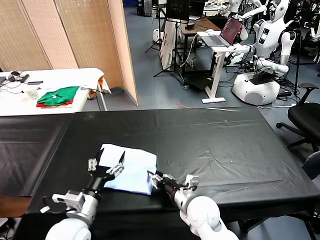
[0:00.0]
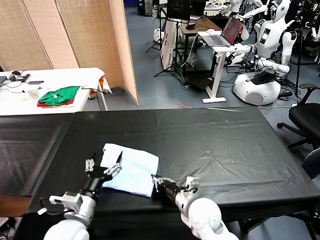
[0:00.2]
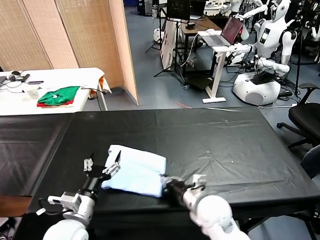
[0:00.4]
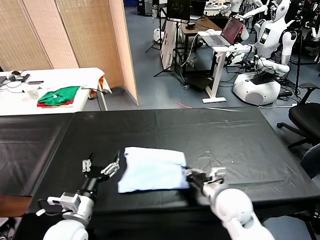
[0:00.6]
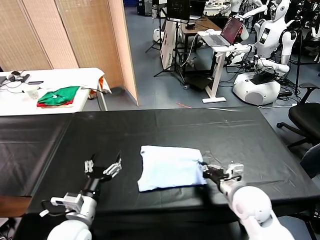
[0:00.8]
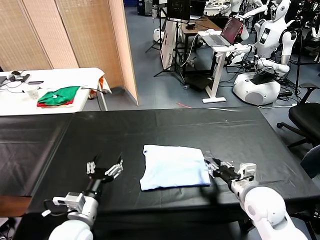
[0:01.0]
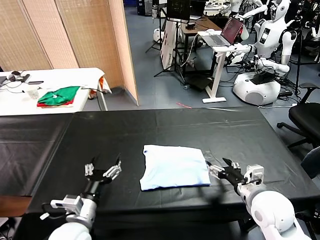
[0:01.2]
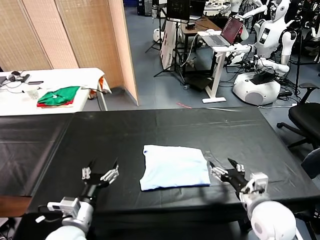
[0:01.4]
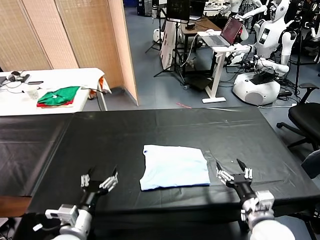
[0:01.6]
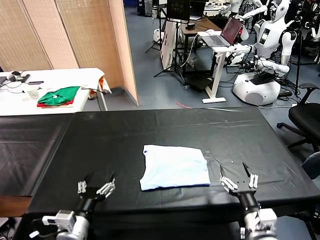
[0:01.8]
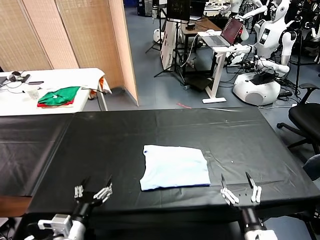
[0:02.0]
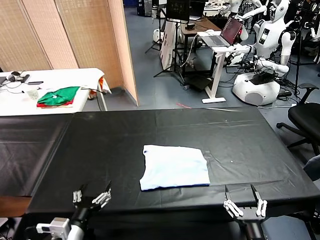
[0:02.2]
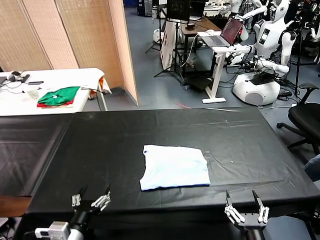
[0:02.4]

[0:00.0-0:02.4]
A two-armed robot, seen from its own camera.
Task of the whole recording: fold and organize the clothes.
Step, 0:00.0 to 0:01.0: Drag the clothes to the center of the table.
0:00.0 to 0:01.2: The right gripper heads to the right and upward, covering about 20 cm, and closes and opens again.
0:01.2 to 0:02.4: The left gripper shifts some 5 cm backward, while the right gripper heads backward, covering some 20 cm.

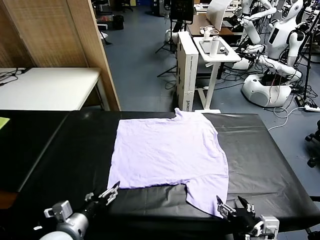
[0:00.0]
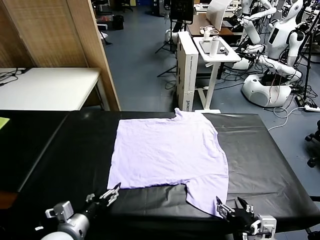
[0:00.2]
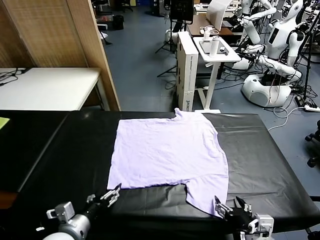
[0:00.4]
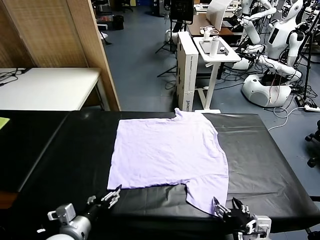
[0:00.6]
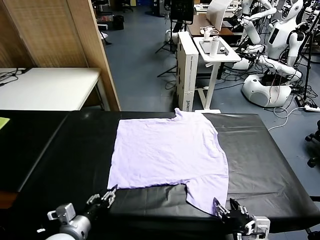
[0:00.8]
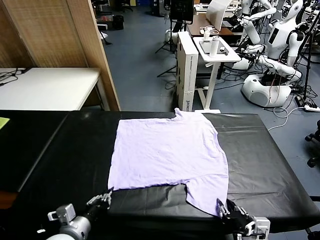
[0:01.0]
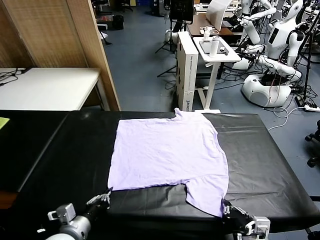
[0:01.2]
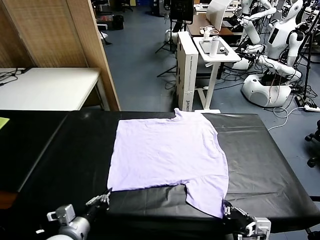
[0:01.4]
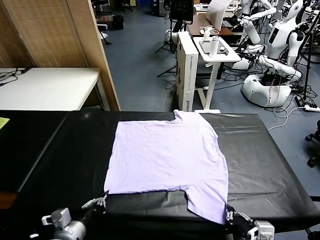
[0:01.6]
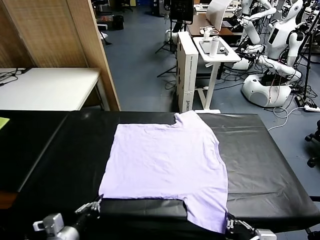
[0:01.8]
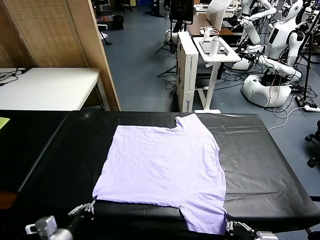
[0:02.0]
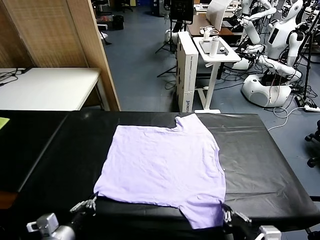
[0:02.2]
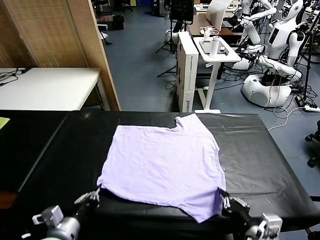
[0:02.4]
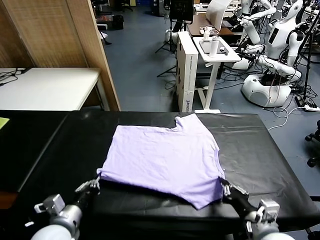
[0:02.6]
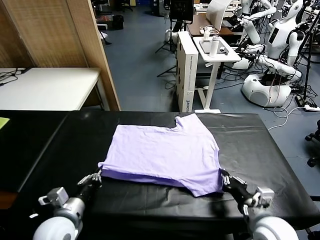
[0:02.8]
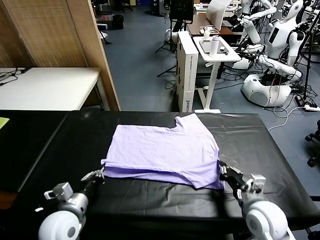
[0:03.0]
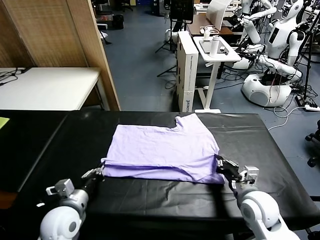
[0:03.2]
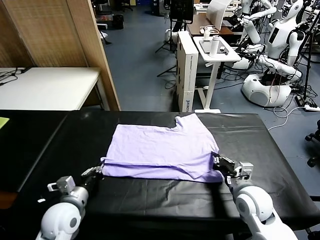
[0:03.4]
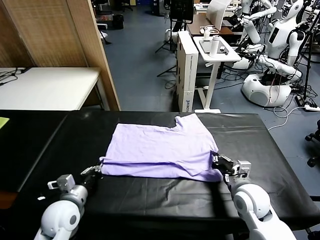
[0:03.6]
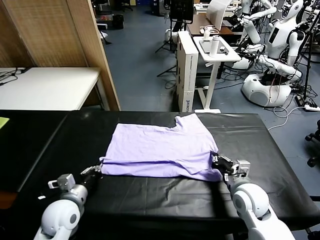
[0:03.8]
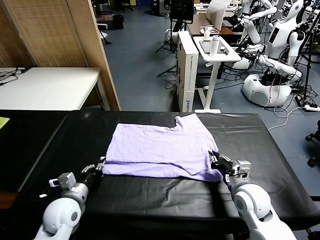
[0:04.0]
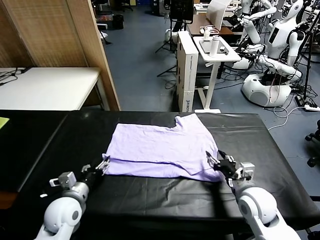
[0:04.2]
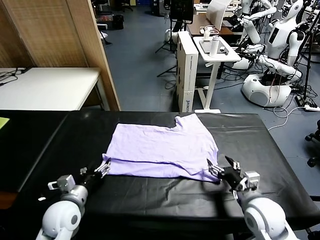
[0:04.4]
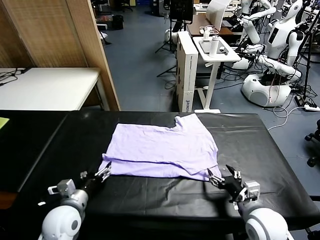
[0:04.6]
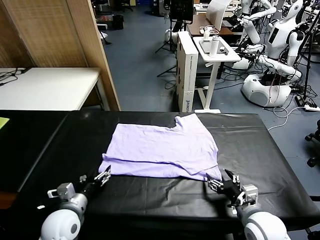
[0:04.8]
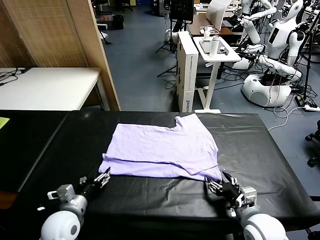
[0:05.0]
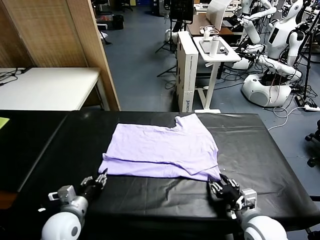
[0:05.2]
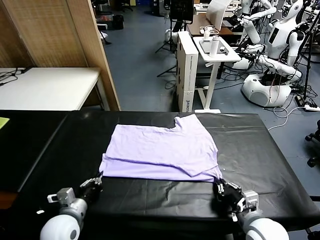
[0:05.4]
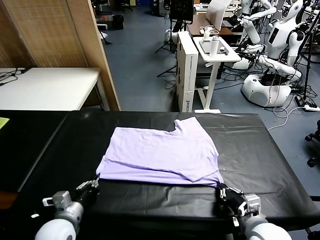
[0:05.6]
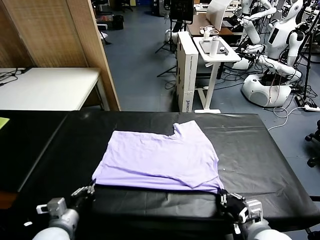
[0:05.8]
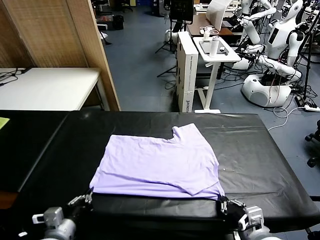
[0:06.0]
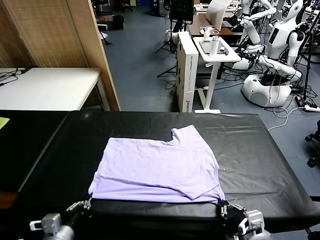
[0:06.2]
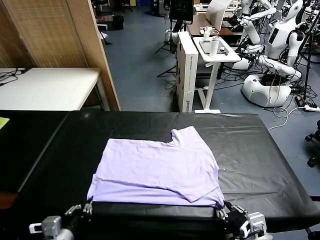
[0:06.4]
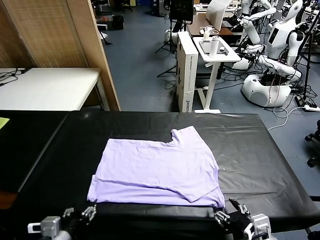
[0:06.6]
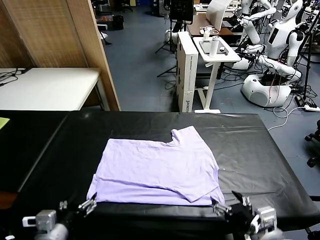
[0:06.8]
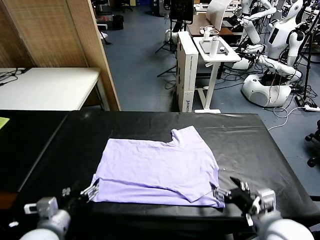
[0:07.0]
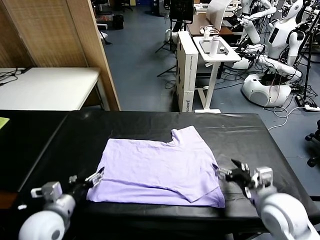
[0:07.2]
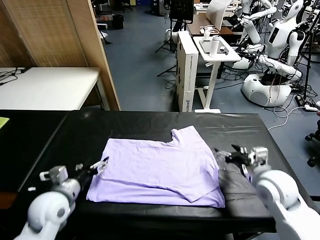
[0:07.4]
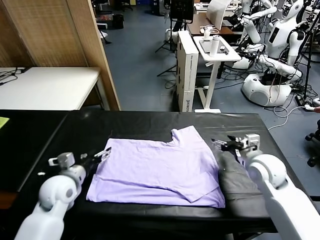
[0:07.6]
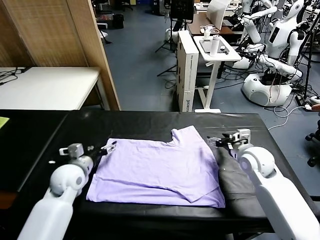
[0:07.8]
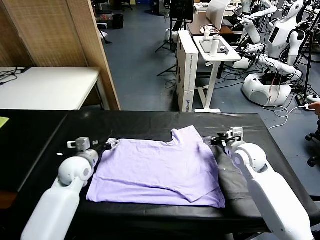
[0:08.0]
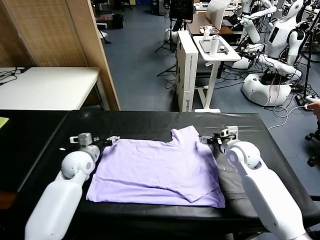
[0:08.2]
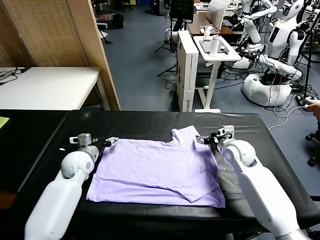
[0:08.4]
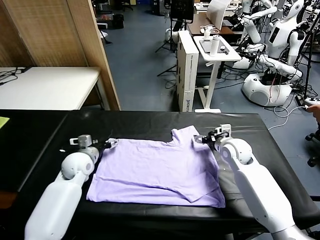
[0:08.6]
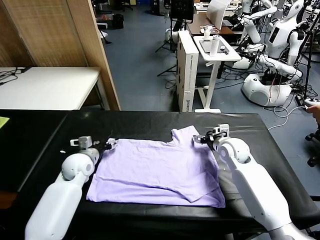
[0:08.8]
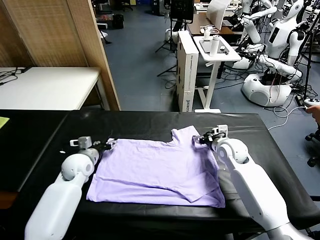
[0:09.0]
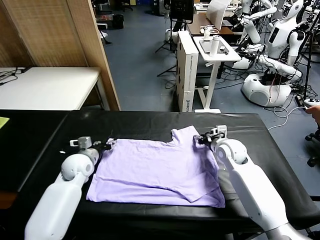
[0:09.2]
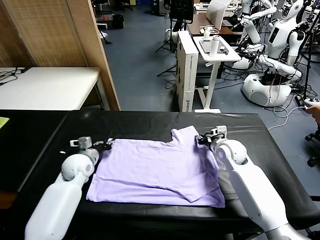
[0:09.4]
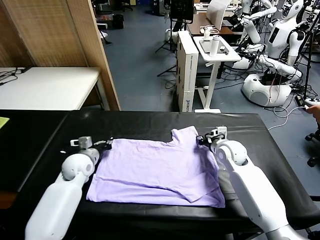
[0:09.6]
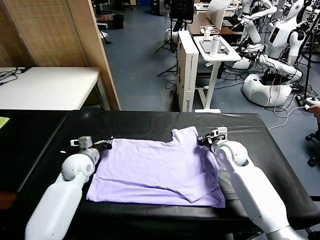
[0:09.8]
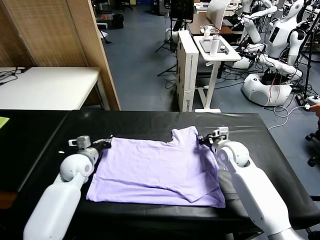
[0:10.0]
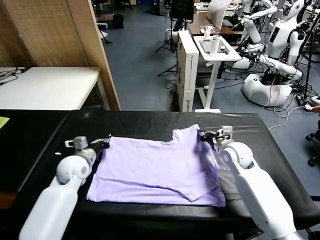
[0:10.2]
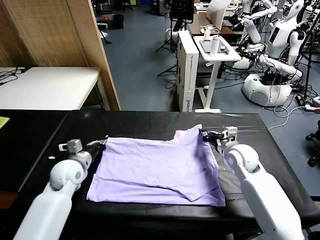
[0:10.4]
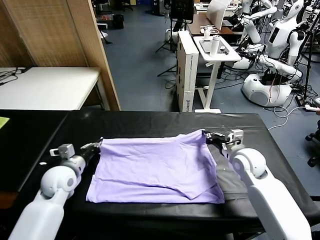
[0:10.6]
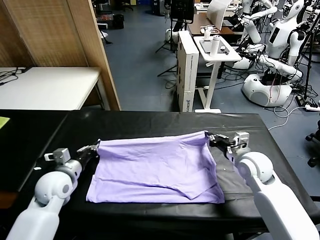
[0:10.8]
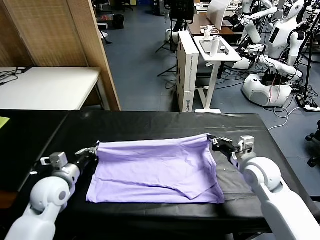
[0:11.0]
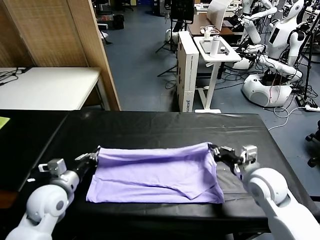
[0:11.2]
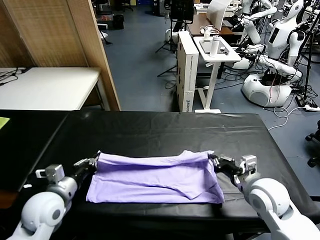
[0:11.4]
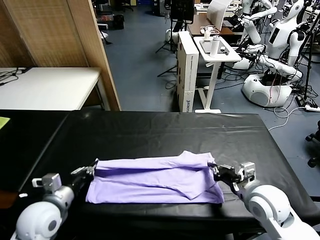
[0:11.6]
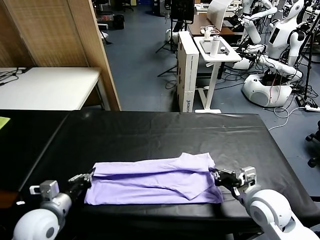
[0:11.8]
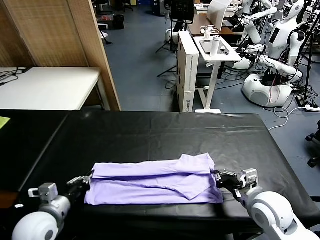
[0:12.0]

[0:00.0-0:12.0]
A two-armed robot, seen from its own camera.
Task of the whole recording: fold and organize the clothes.
Step, 0:00.0 to 0:01.6: use both grippers simultaneously to clamp the lower edge of the clothing fabric.
Step, 0:01.8 to 0:04.2: use both grippers to drag the lower edge of the fabric forward and fold it over the upper edge.
Step, 0:04.4 to 0:06.6: Drag the clothes downward with both gripper.
Step, 0:06.8 to 0:09.8: use both grippers simultaneously to clamp the upper edge of the clothing fabric.
0:01.6 to 0:03.0: The left gripper travels forward by roughly 10 cm. Meanwhile the right gripper moves forward, roughly 20 cm.
0:03.0 to 0:04.4: The right gripper opens, while the left gripper opens its fingers.
0:04.4 to 0:06.0: The grippers both shift backward by some 10 cm. The left gripper closes, while the right gripper closes.
0:06.0 to 0:07.6: The left gripper moves forward, roughly 10 cm, and opens up, while the right gripper is displaced forward by roughly 25 cm, and opens.
0:07.6 to 0:09.0: The left gripper travels forward by some 15 cm, and closes up; the right gripper travels forward and downward by roughly 10 cm, and closes.
0:09.0 to 0:10.4: The right gripper is displaced backward by about 5 cm; the left gripper closes its fingers.
0:10.4 to 0:12.0: The grippers both shift backward by some 15 cm.

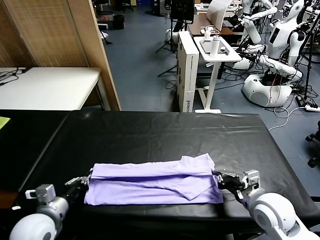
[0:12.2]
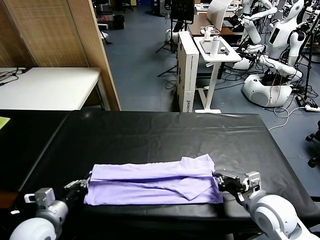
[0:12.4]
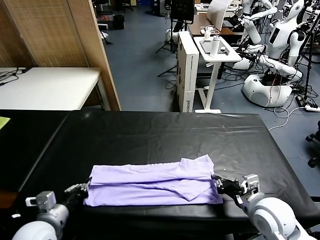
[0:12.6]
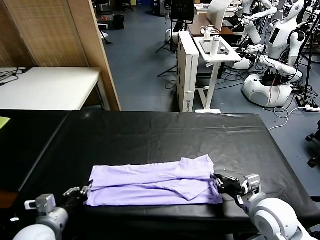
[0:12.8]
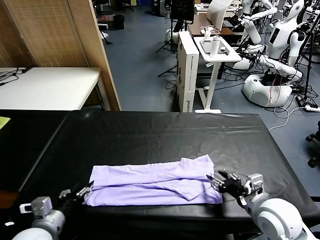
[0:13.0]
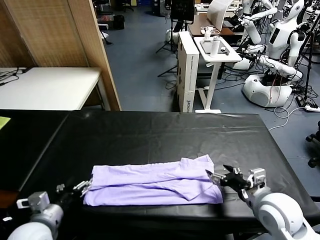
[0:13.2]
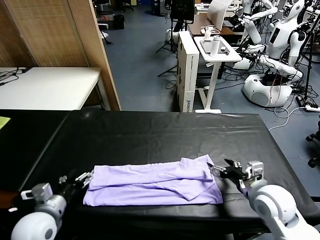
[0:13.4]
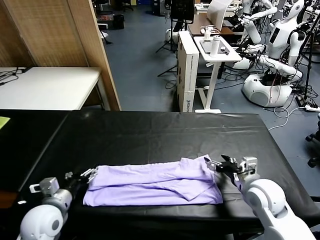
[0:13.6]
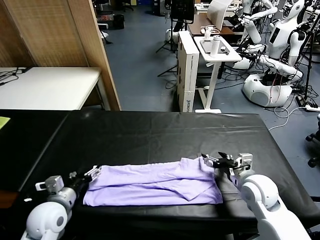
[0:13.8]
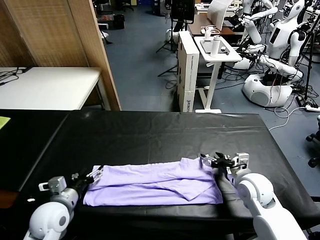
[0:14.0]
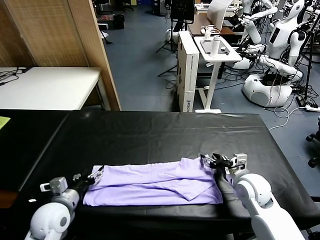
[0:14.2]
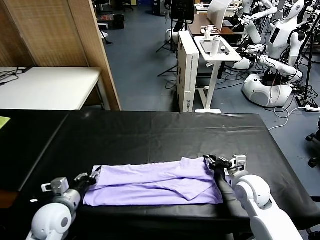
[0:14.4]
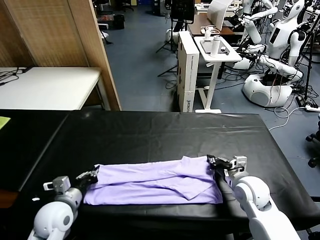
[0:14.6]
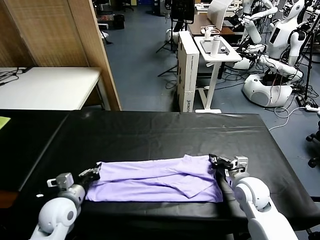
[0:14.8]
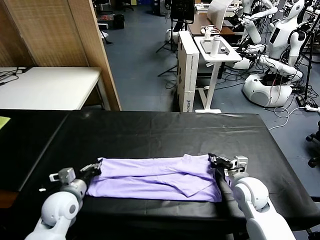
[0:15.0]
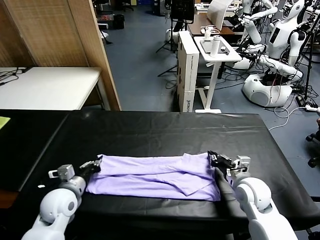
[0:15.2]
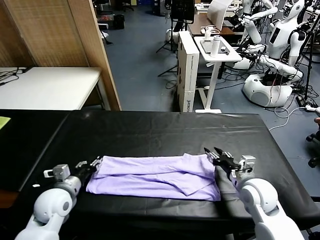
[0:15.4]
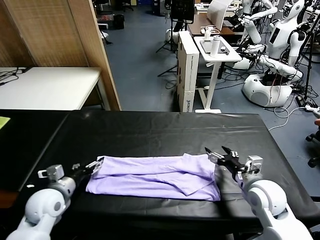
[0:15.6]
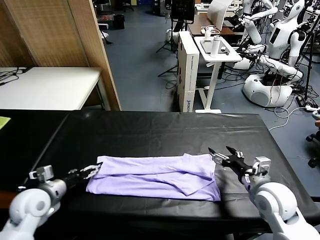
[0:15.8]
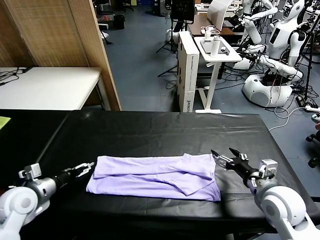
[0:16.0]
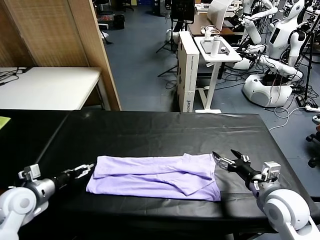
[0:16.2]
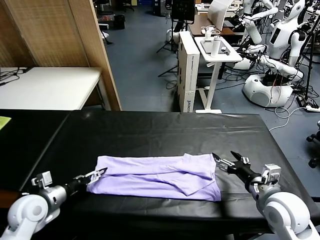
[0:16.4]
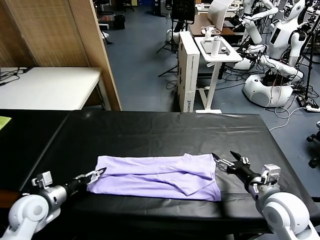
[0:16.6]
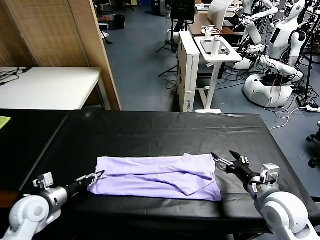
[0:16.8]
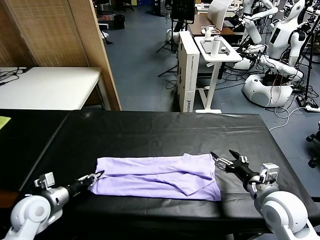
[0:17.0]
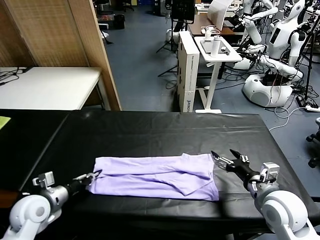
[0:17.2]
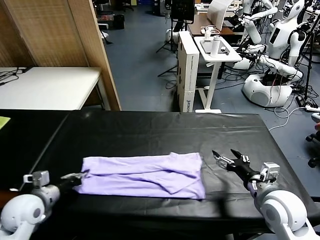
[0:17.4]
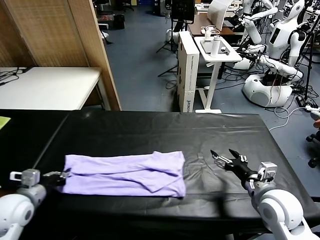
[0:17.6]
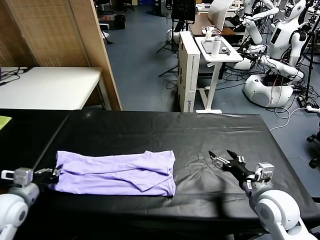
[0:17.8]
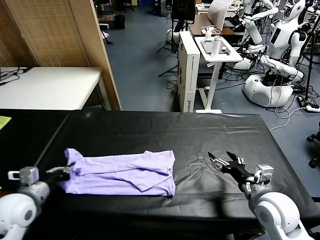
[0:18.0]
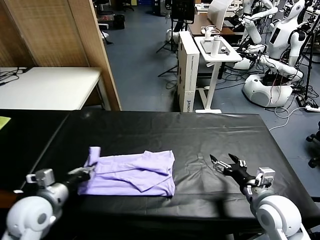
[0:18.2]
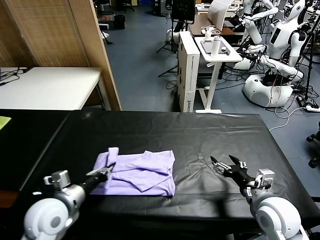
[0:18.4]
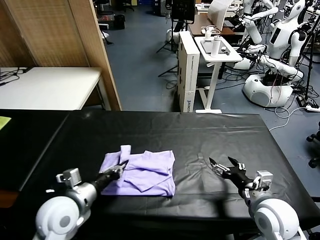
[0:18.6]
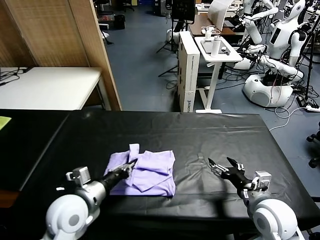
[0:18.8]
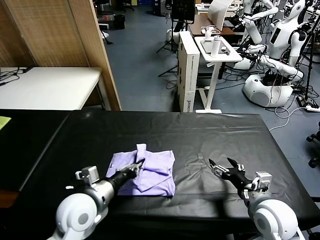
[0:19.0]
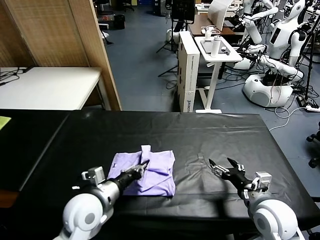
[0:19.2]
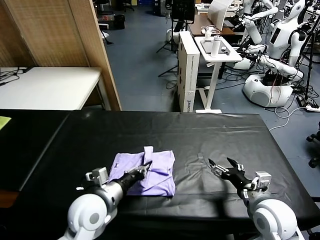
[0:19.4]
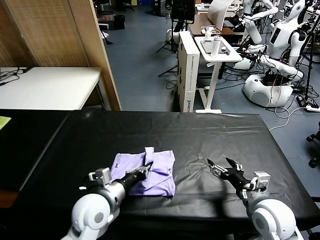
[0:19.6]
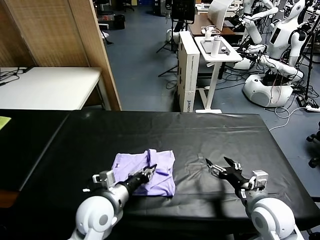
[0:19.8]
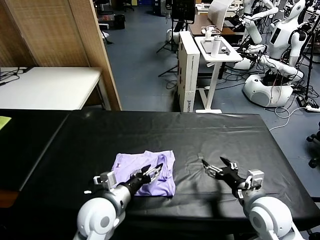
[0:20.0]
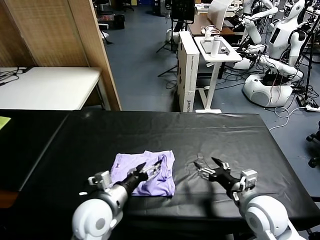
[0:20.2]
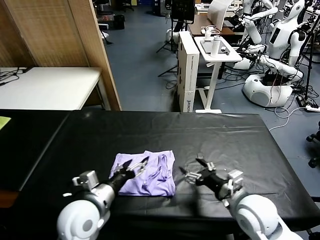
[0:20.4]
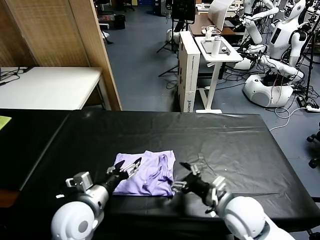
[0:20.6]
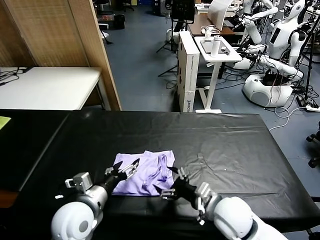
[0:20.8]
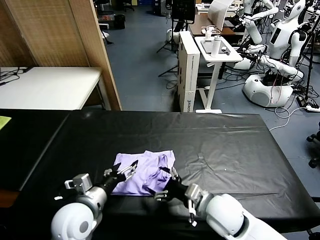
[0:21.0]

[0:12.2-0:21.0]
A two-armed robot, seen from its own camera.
Task of the whole recording: fold and organize the clothes.
Step, 0:13.2 to 0:17.0: use the left gripper to clamp the left edge of the fabric.
Step, 0:17.4 to 0:20.2: use the left gripper to drag the left edge of the fabric to the left and folds it over the right edge.
0:12.2 to 0:13.6: The right gripper opens. Meanwhile the left gripper opens up.
0:13.6 to 0:15.2: The left gripper shifts approximately 5 cm forward, and closes, then reopens. Meanwhile the right gripper closes and opens again.
0:15.2 to 0:16.6: The left gripper shifts roughly 10 cm to the left. The right gripper travels backward and upward by some 10 cm.
0:16.6 to 0:18.0: The left gripper is displaced to the right by about 10 cm, and closes its fingers.
0:18.0 to 0:19.6: The left gripper is displaced to the right by roughly 10 cm.
0:19.6 to 0:21.0: The left gripper ends up some 5 cm from where it was, and opens its fingers. The right gripper goes approximately 15 cm to the left.
